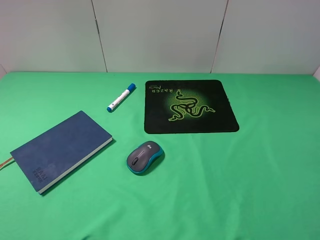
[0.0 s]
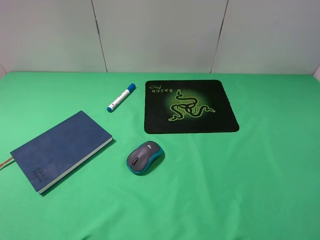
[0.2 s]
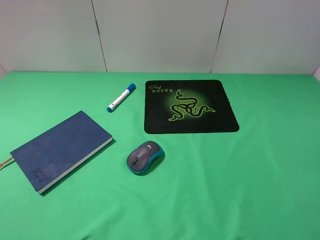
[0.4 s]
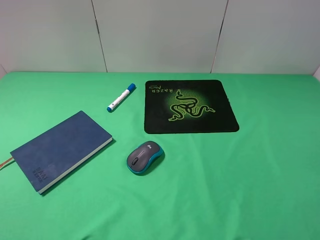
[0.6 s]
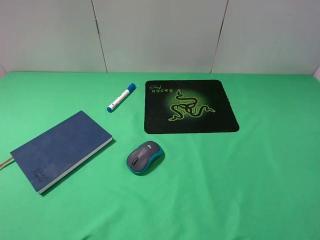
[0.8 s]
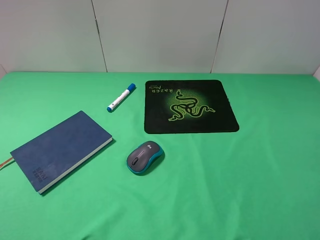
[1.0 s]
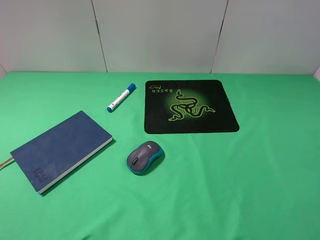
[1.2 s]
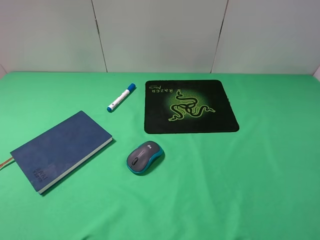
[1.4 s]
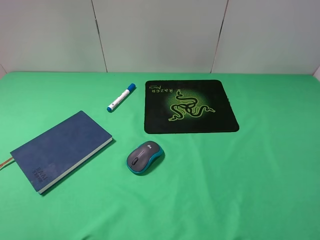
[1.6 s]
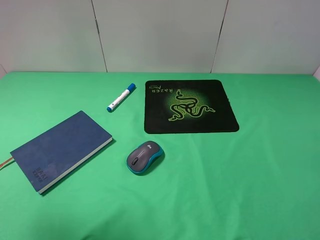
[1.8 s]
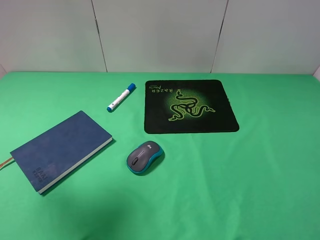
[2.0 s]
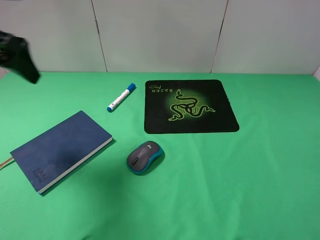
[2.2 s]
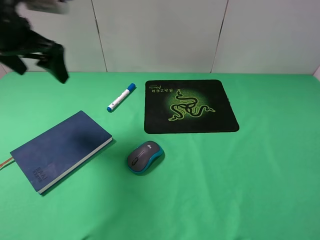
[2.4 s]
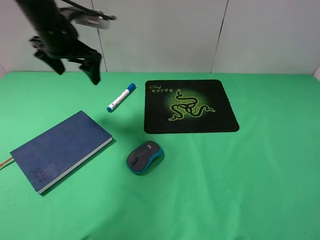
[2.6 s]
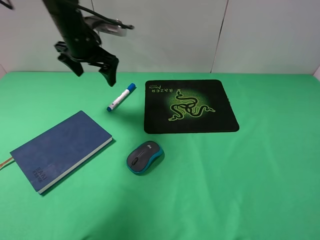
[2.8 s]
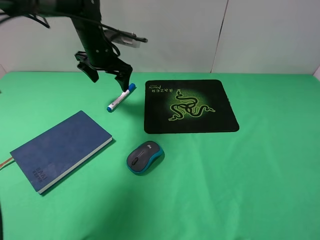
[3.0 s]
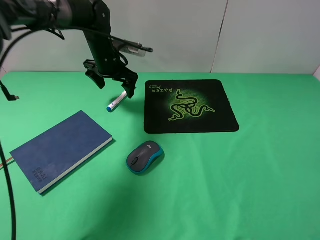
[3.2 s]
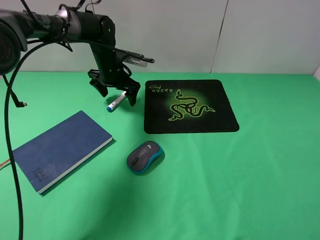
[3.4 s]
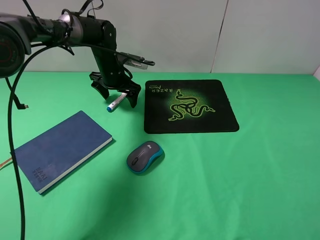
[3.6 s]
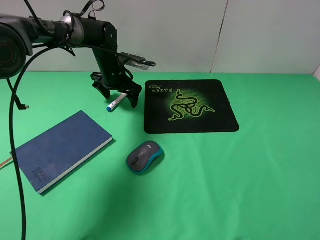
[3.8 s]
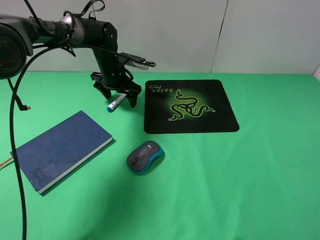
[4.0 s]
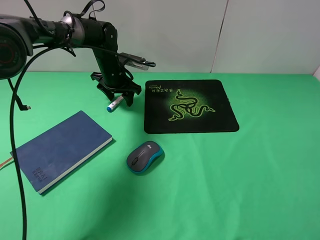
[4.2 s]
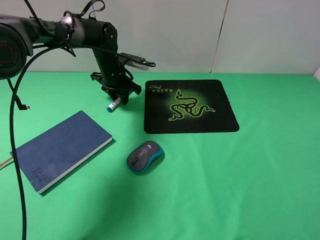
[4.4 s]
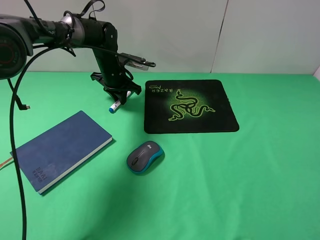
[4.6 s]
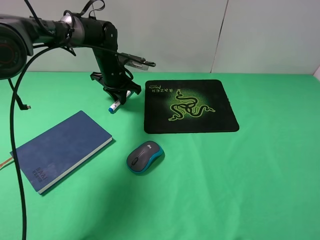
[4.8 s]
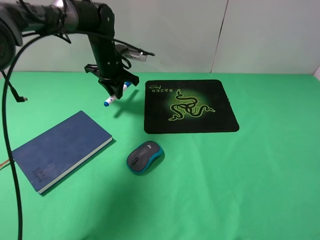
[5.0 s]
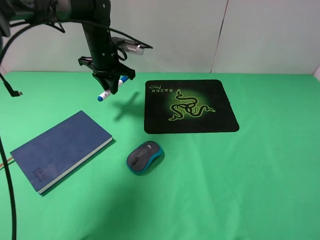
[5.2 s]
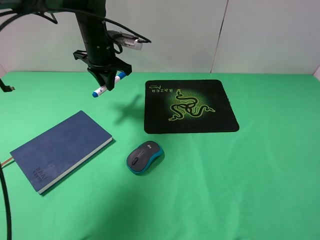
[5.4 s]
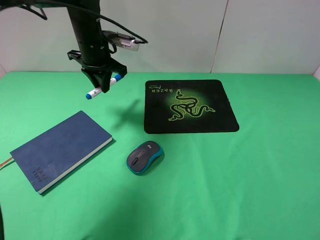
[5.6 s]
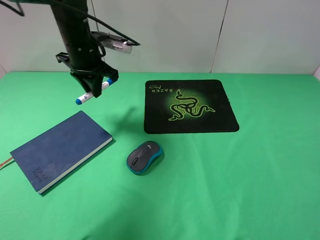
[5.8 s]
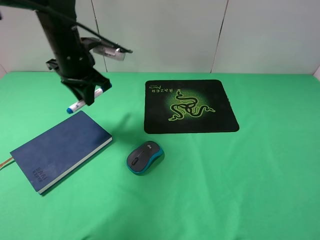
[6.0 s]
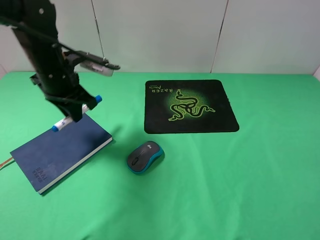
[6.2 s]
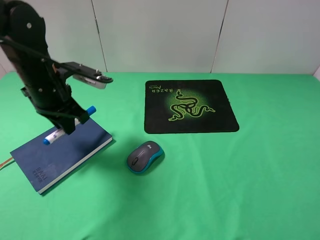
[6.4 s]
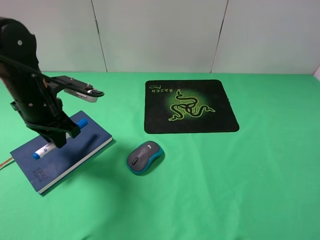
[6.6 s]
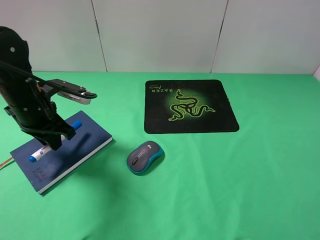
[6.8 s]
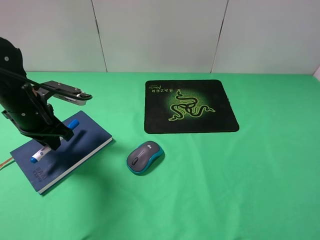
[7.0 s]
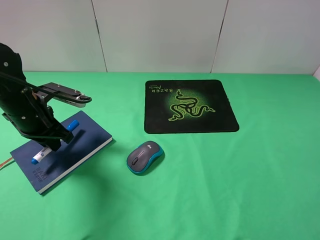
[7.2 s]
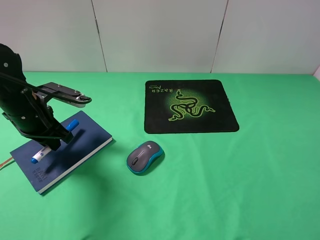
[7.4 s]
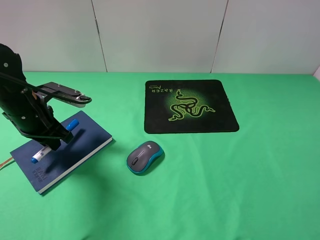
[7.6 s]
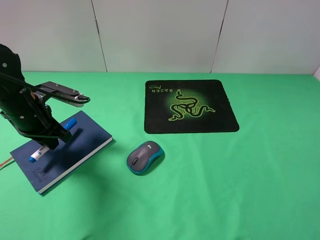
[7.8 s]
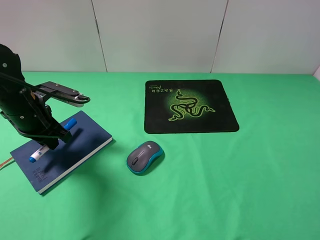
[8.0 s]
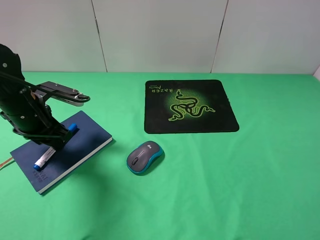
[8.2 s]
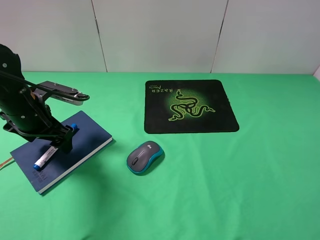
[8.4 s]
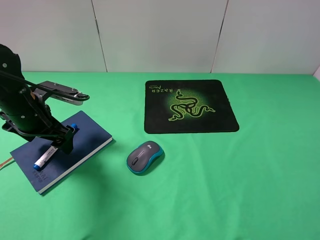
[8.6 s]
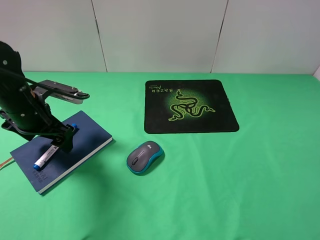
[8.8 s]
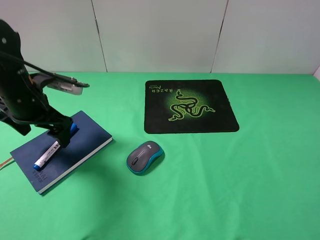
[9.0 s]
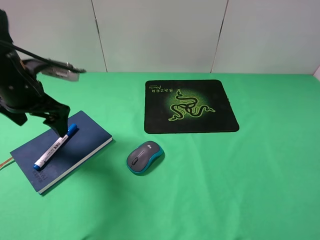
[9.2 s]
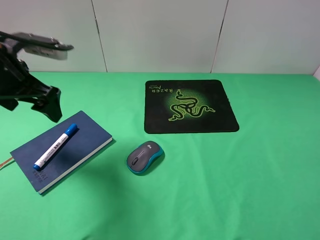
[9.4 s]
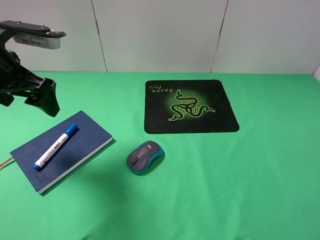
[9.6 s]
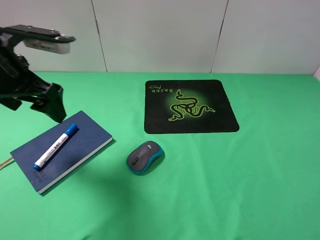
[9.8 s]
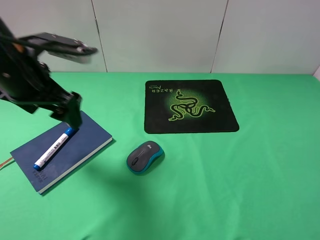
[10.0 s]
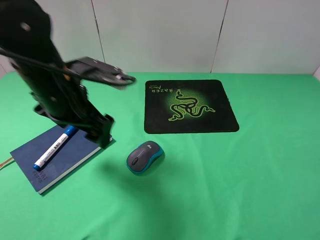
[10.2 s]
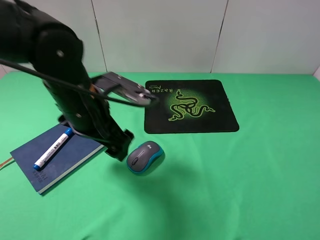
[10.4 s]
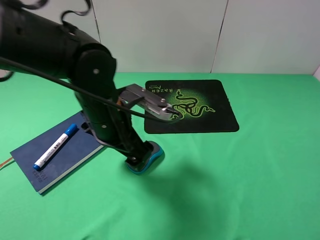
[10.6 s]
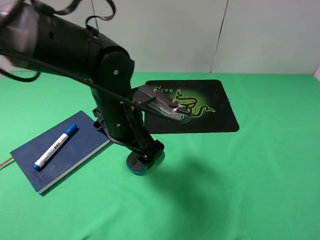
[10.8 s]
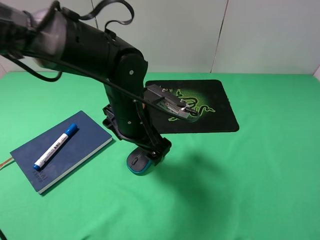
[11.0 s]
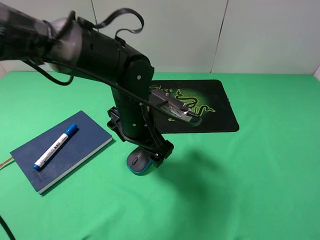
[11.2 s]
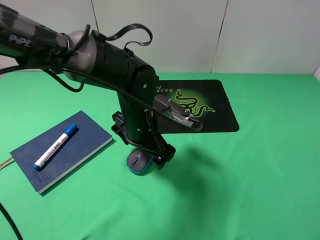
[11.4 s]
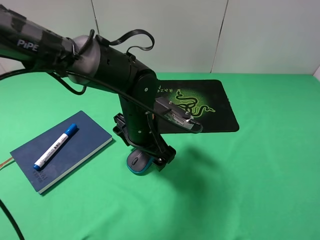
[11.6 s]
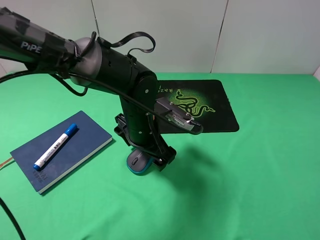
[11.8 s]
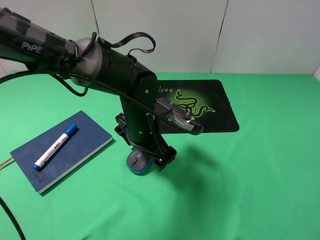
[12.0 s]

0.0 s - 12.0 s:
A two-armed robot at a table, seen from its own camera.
Step, 0.0 s - 4.4 s: Grasp the marker with the left gripper.
Step, 4.6 s - 8.4 s: Place the marker on the notebook with the left gripper.
1.6 s - 3.0 s: The left gripper goes roughly 50 cm forward, downward and to the right.
3.0 s - 4.4 s: The left gripper is displaced downward by approximately 5 cm, and closes up.
4.4 s - 6.0 s: The left gripper goes about 15 cm backward and upward.
6.0 s - 7.6 s: The left gripper shifts approximately 15 cm backward, to the left and downward.
7.6 s - 9.0 s: The left gripper opens up.
9.0 s - 10.4 s: The left gripper moves to the right, about 15 cm.
10.4 s - 12.0 s: The left gripper heads to the right and downward, covering about 10 cm.

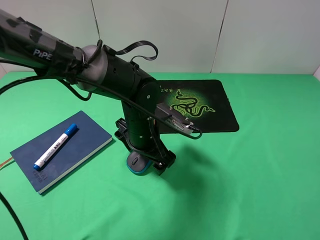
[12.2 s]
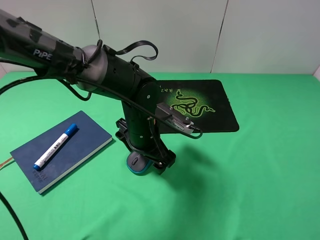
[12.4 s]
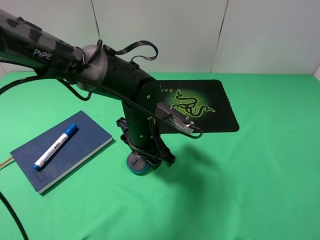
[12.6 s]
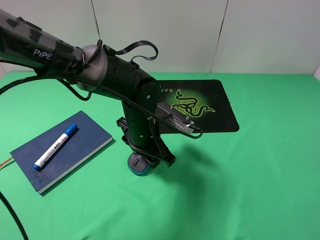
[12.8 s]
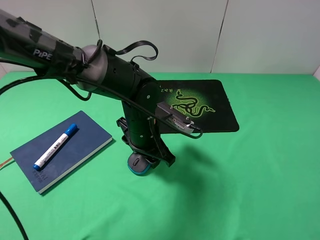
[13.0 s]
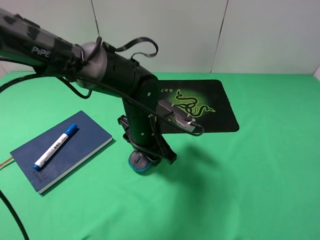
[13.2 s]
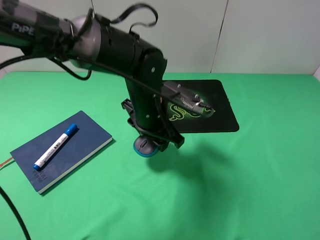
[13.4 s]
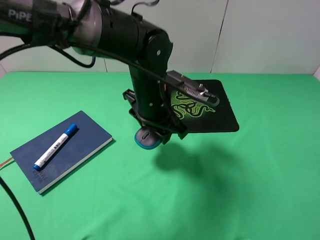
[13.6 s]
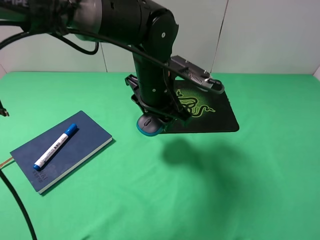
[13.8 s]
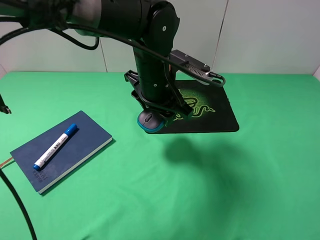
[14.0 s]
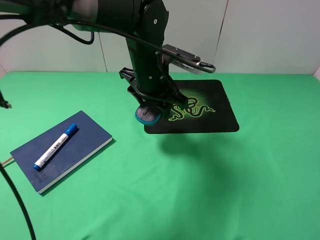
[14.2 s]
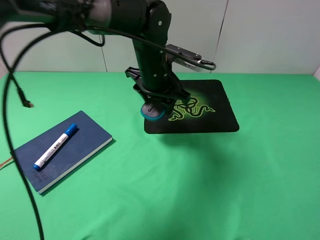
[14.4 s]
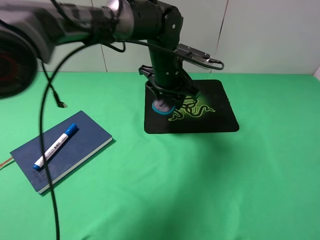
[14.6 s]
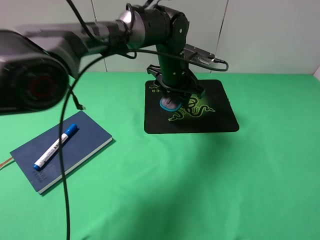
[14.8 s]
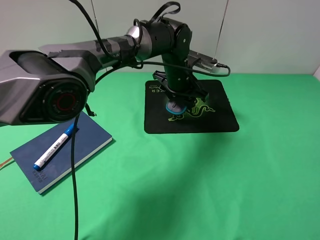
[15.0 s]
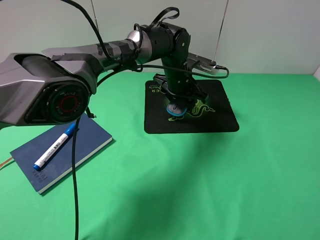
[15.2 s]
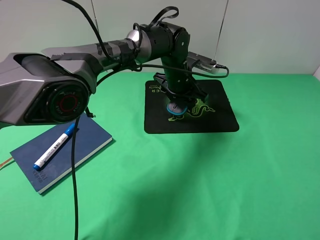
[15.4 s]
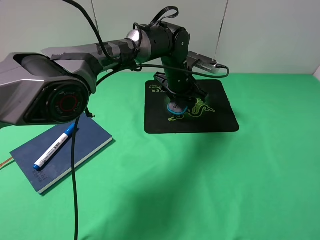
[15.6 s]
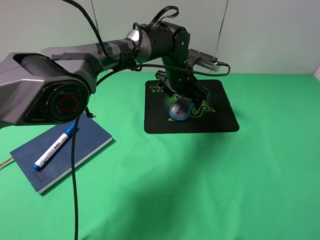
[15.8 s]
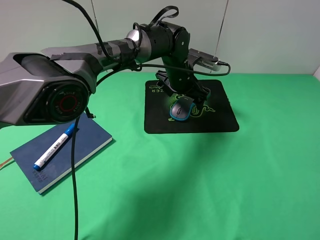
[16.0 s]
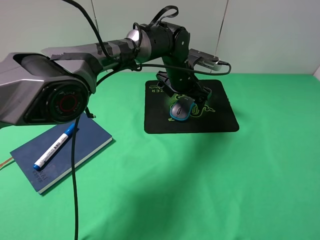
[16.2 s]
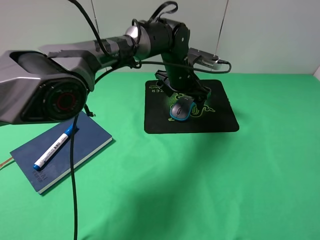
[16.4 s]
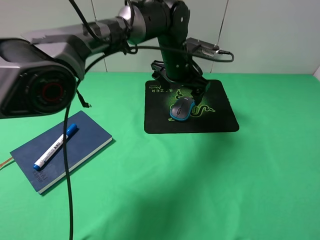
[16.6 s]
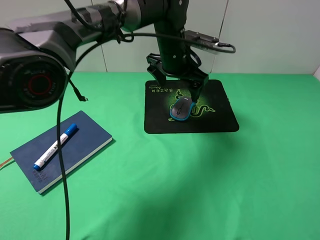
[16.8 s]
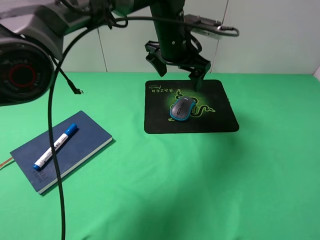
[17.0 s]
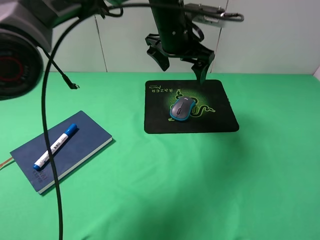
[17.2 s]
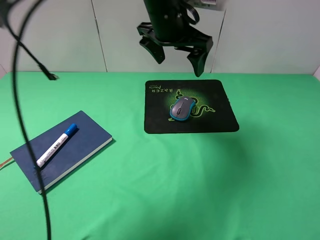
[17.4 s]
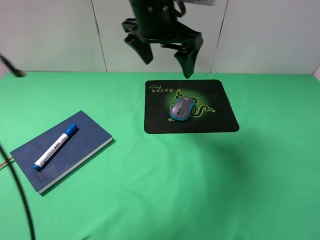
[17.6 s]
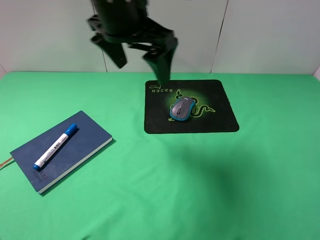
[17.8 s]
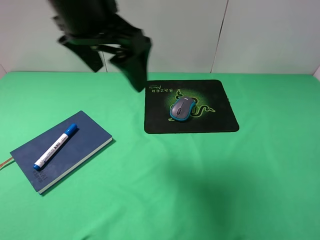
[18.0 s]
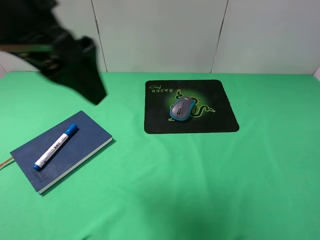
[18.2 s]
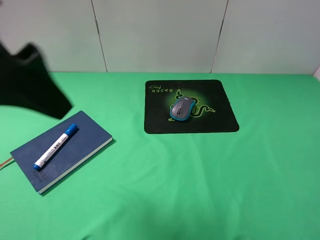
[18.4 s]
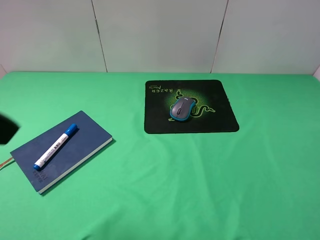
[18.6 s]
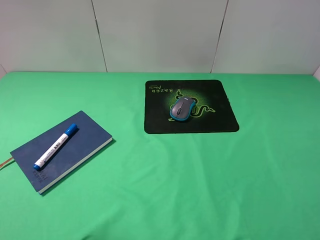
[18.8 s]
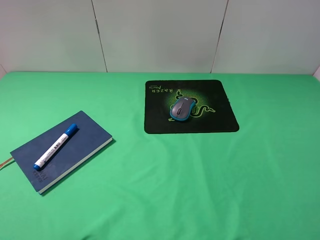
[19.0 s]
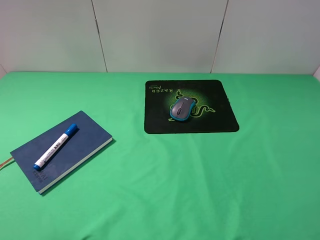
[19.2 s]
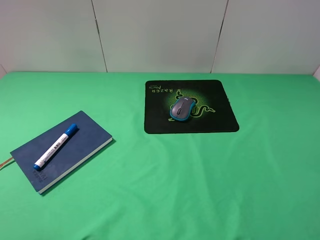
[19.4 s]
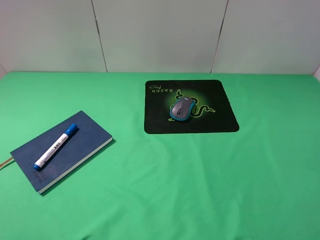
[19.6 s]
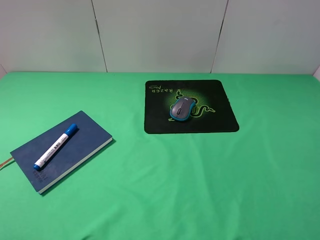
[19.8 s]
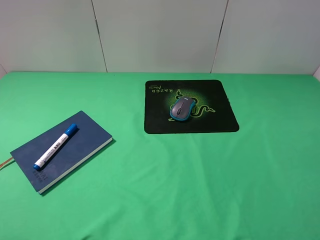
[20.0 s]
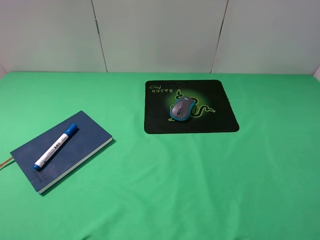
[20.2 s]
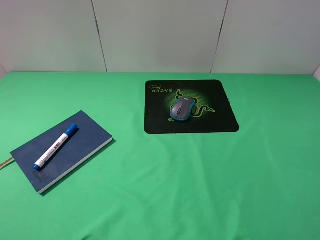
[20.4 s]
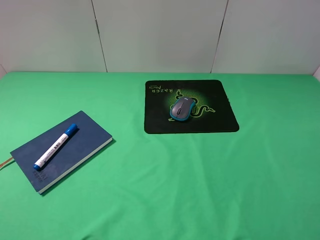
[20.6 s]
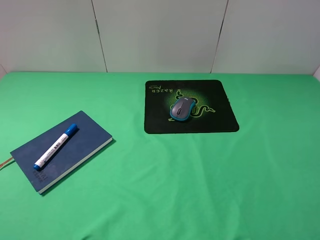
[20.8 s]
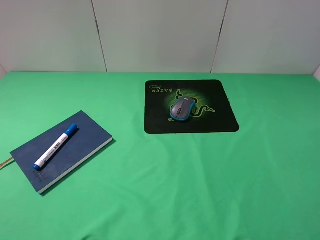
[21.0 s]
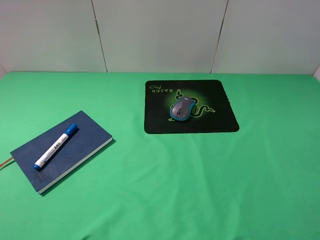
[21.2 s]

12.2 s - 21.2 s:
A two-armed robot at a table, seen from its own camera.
Step, 13.2 s - 16.0 s: Place the mouse on the mouse pad with the left gripper.
12.2 s - 13.8 s: The left gripper moves upward, about 10 cm, and closes.
13.8 s - 15.2 s: The left gripper heads forward and downward, covering approximately 15 cm.
15.2 s - 16.6 s: The left gripper heads upward, covering approximately 5 cm, and opens.
16.6 s - 18.2 s: The left gripper heads backward, to the left and upward, covering about 35 cm.
18.2 s - 19.8 s: The left gripper shifts about 25 cm to the left, backward and downward.
